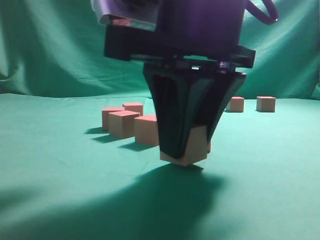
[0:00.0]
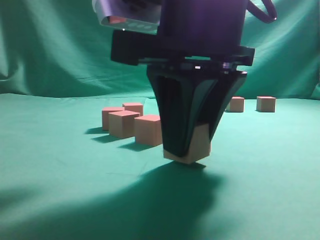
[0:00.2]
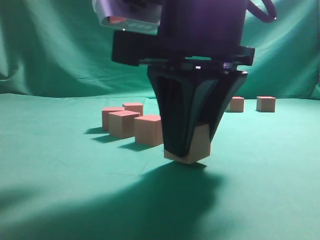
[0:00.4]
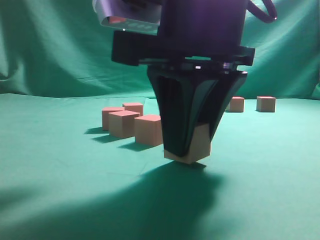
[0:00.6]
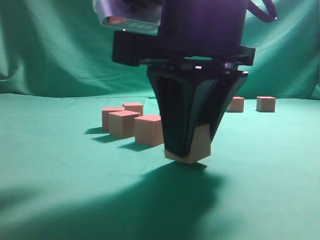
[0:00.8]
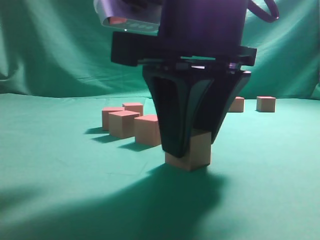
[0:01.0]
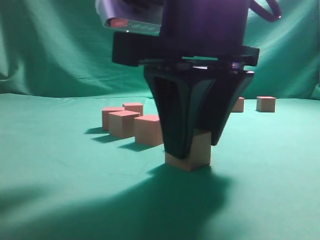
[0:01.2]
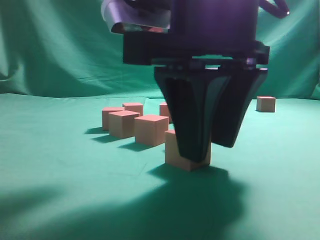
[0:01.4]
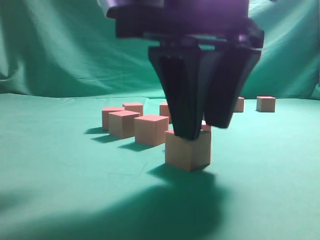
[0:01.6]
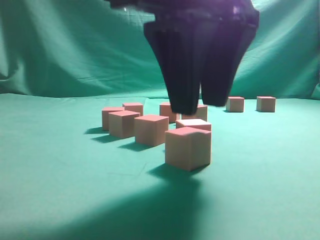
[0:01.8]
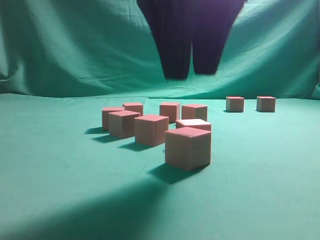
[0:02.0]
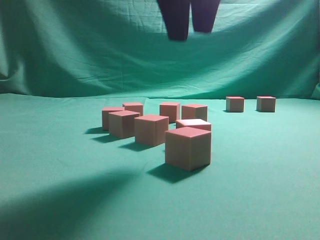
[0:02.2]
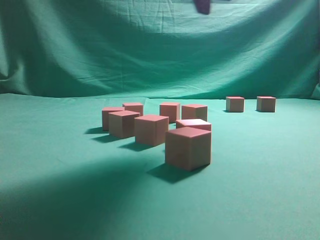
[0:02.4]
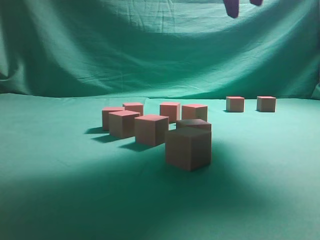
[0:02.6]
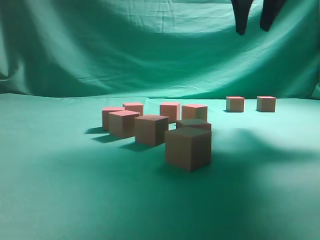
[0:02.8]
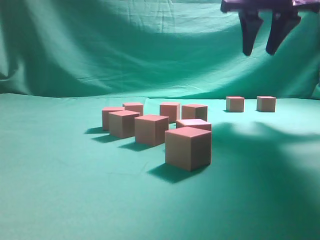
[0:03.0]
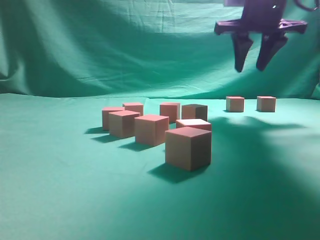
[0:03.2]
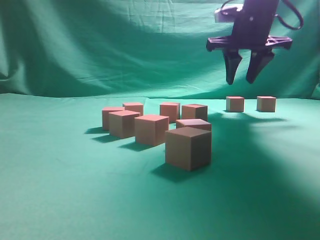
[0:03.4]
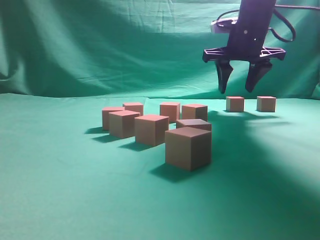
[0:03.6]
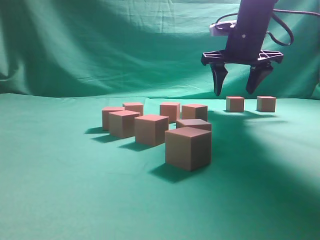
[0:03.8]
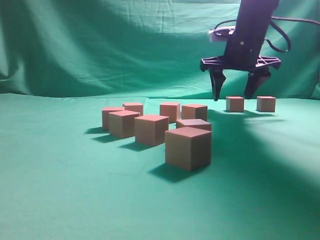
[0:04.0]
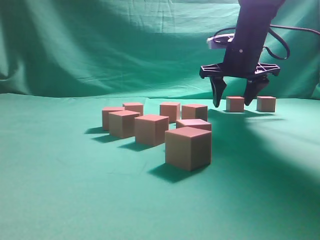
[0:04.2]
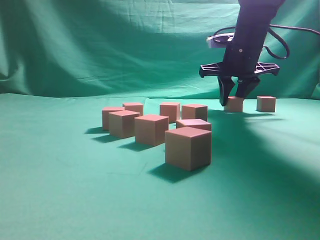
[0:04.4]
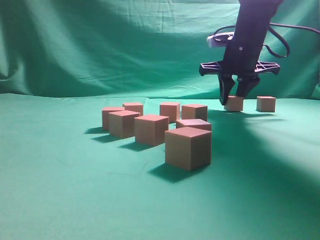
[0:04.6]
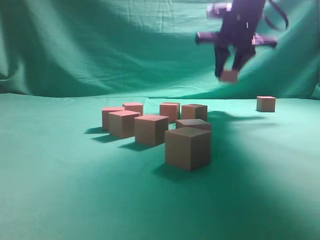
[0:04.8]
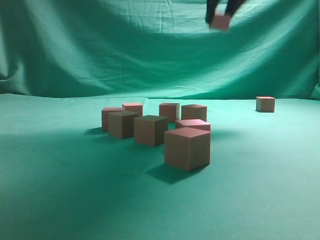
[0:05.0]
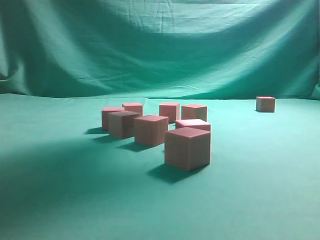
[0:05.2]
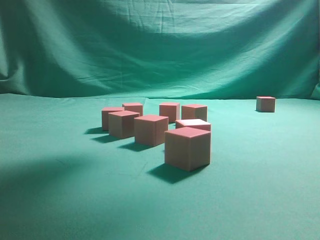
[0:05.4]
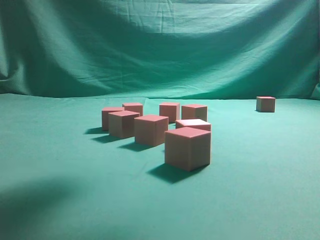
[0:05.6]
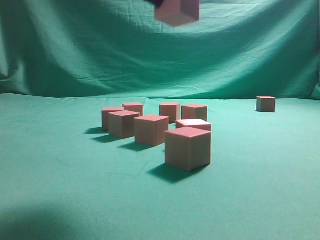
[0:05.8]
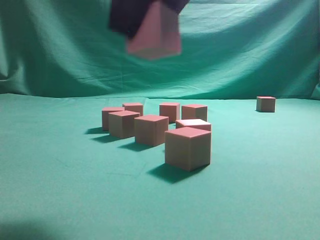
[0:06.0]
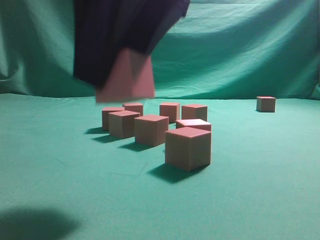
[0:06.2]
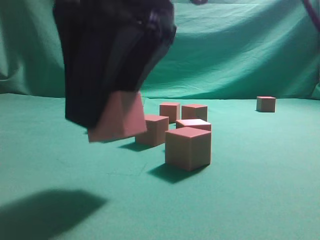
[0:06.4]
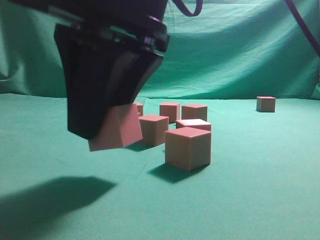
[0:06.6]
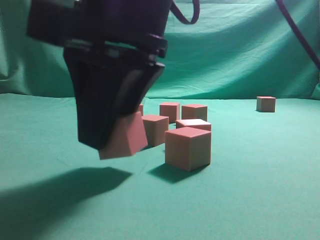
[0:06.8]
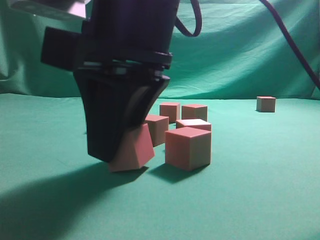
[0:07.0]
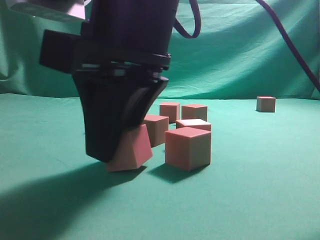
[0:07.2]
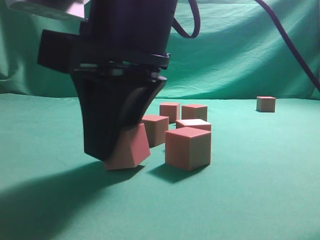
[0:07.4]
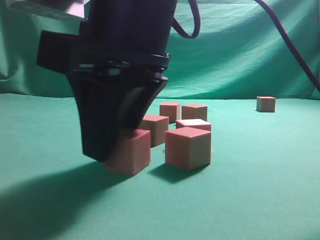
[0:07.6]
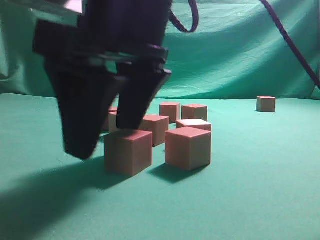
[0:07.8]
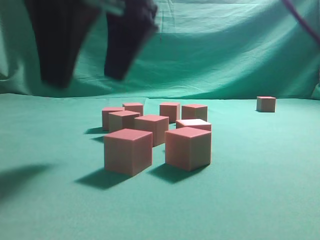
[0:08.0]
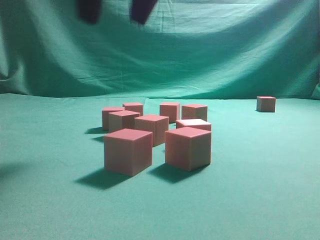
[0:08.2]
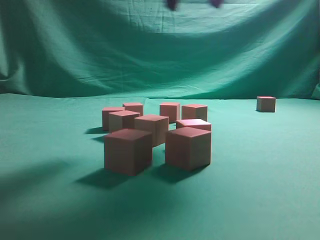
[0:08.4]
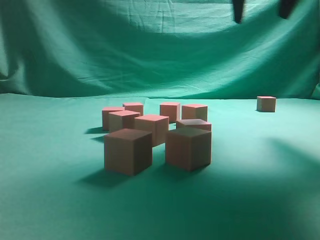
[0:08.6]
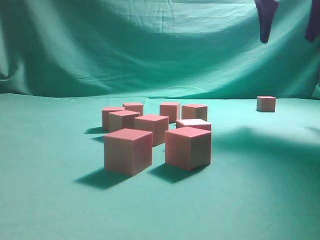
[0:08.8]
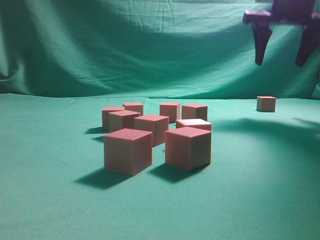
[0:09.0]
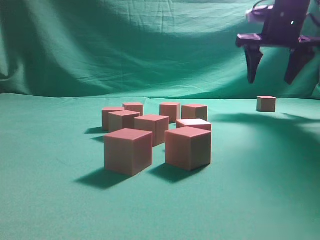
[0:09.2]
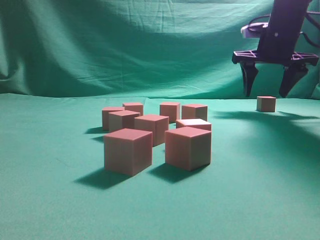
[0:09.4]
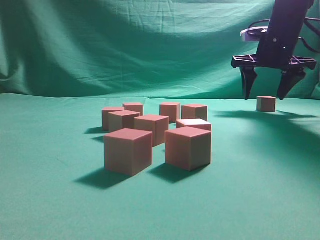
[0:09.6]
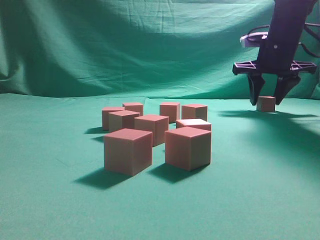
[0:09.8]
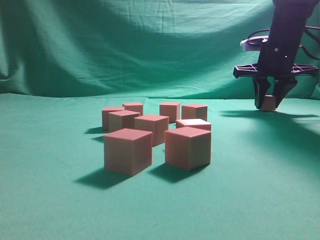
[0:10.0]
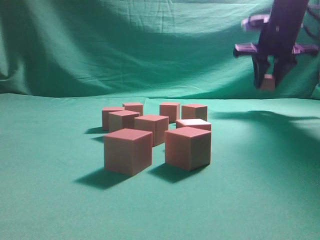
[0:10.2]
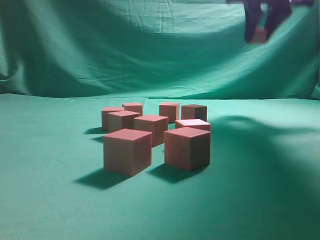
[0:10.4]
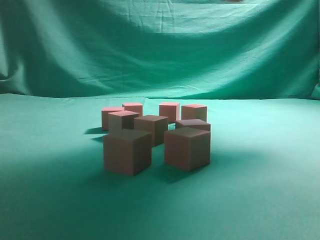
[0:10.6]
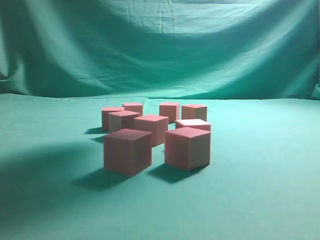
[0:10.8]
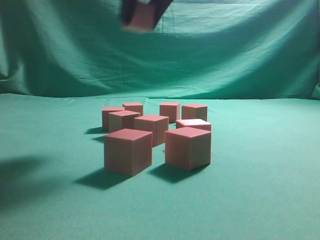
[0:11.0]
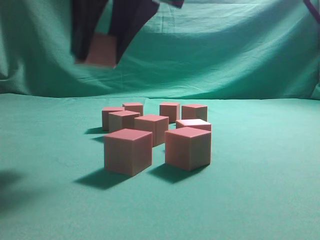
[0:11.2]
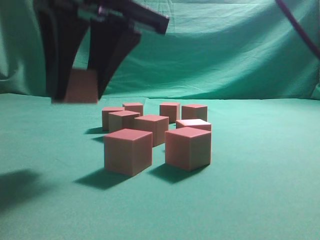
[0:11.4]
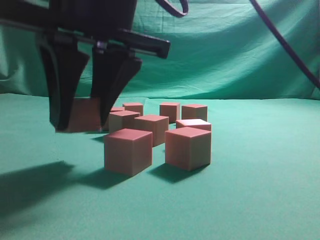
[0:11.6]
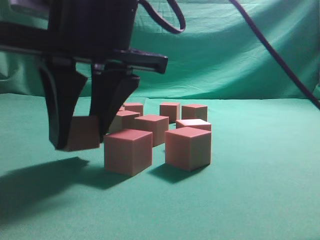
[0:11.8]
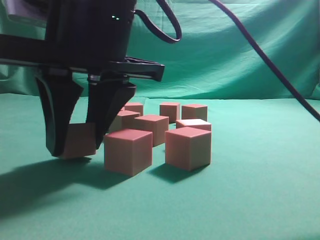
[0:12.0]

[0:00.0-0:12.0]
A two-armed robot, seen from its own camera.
Task of the whole recording: pick up the multiple cubes in two columns one by one and place them in another position on the table.
Step, 0:00.0 to 0:02.0: Place the block at the correct position to assemble the letter S.
Step, 0:02.2 to 0:04.8: Pick up the block on the table.
Step, 0:05.0 to 0:07.8: Place the block at the correct position to assemble the letter S.
Step, 0:08.2 to 0:10.2: Pick up the block on the table.
0:00.0 to 0:01.6: The grippers stay close to where they were, moving slightly.
0:01.6 to 0:03.0: The right gripper moves forward and to the right, about 25 cm.
0:03.0 to 0:04.4: The right gripper goes some 15 cm downward and forward, and opens and closes again.
0:04.4 to 0:06.0: The right gripper moves backward and to the left, approximately 30 cm.
0:06.0 to 0:07.6: The right gripper is displaced downward by some 10 cm.
0:07.6 to 0:09.0: The right gripper goes about 35 cm to the right and forward, and opens its fingers.
0:09.0 to 0:10.4: The right gripper reaches some 10 cm downward, then returns, and closes up.
0:10.4 to 0:12.0: The right gripper goes roughly 35 cm to the left, backward and downward.

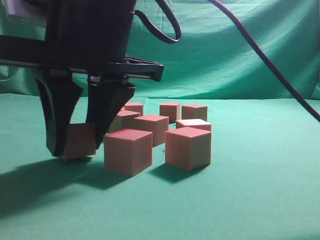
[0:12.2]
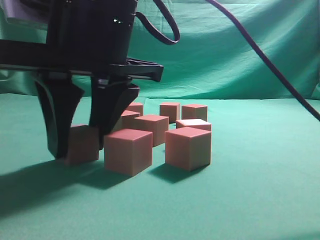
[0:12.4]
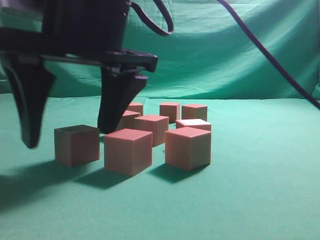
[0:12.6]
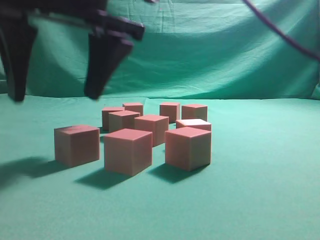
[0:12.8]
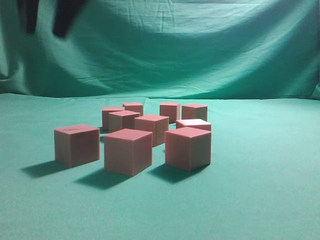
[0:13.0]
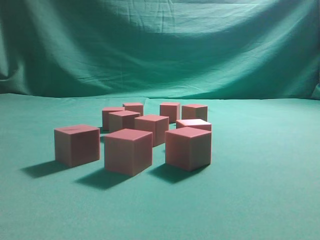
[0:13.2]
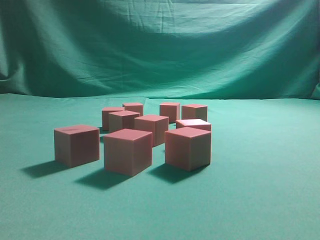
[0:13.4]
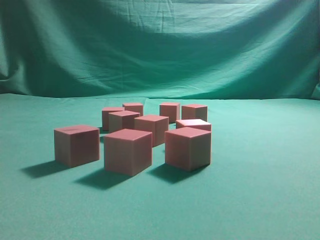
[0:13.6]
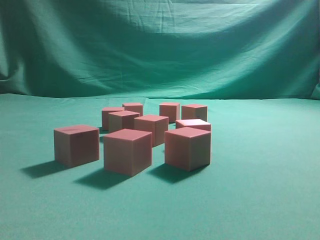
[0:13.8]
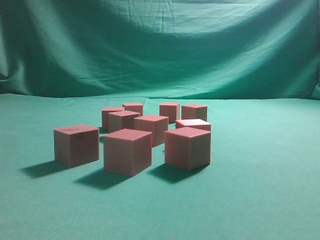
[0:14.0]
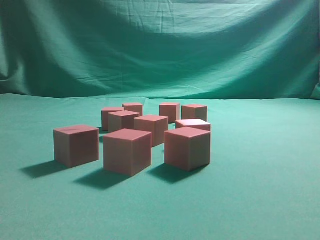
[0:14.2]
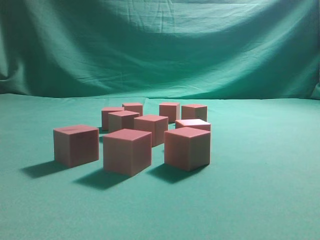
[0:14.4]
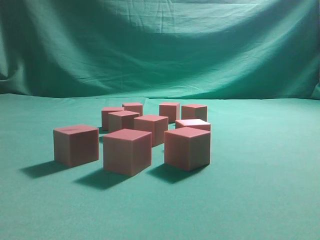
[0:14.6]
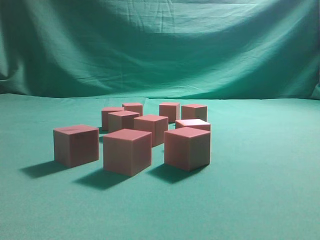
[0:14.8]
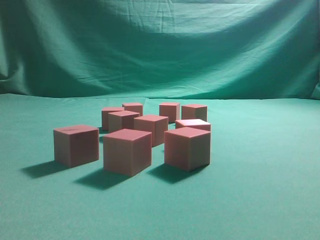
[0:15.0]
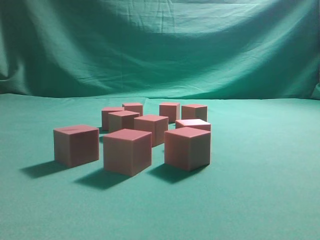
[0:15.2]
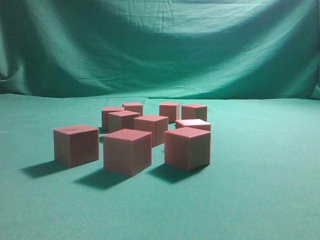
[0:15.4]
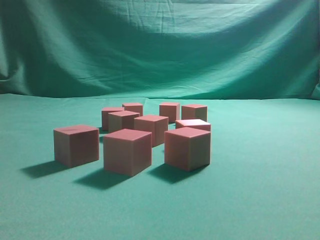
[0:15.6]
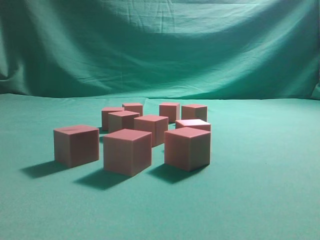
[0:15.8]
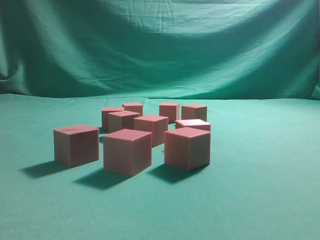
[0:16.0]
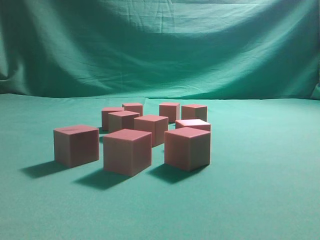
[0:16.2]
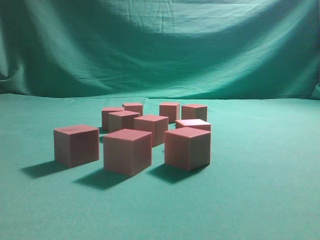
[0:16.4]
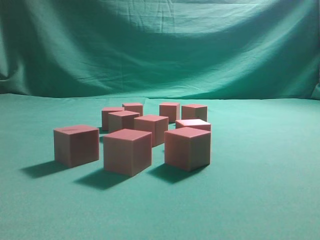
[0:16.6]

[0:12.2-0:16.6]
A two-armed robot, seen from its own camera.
Task of the whole recording: pick up the multiple cubes in two columns one by one and place them in another position on the table.
0:12.2 to 0:13.6: The right gripper shifts some 30 cm upward, and closes.
